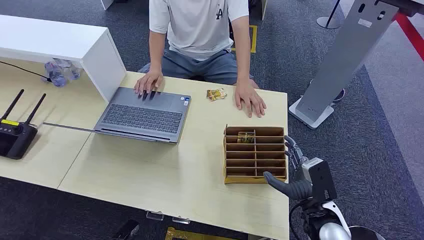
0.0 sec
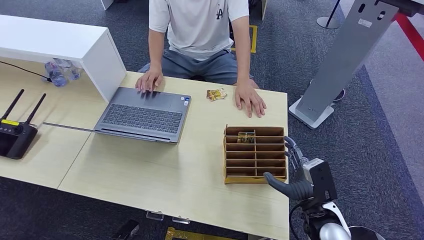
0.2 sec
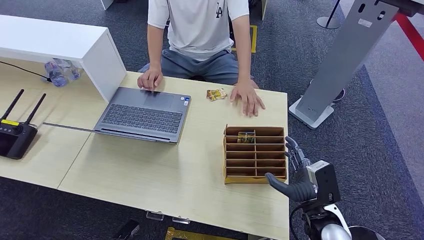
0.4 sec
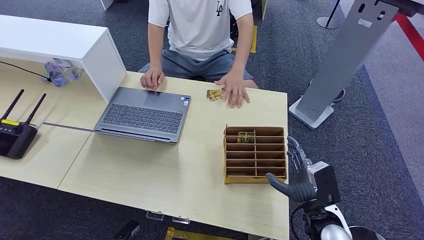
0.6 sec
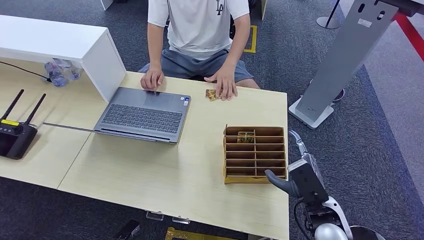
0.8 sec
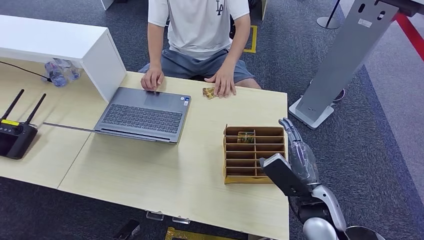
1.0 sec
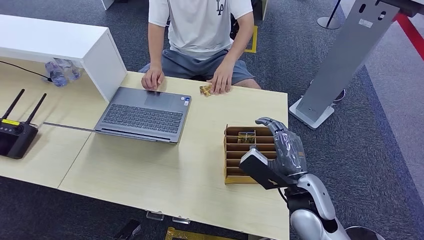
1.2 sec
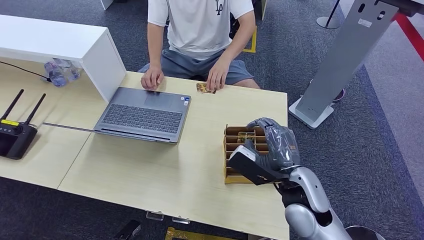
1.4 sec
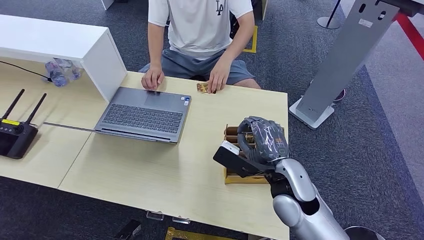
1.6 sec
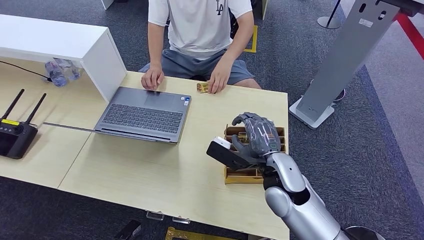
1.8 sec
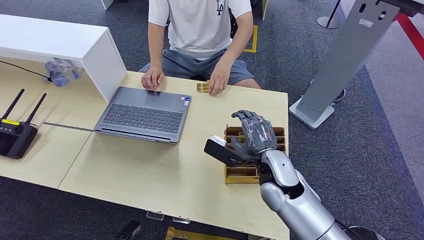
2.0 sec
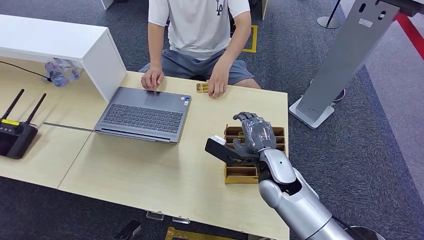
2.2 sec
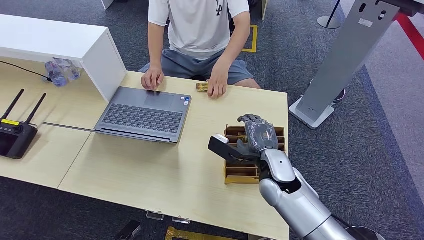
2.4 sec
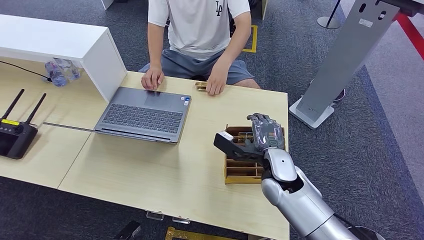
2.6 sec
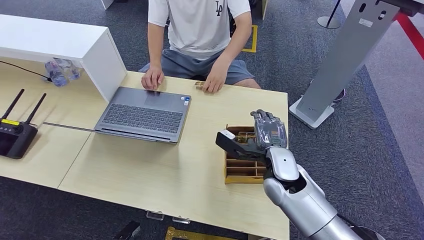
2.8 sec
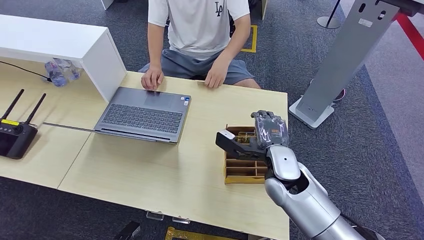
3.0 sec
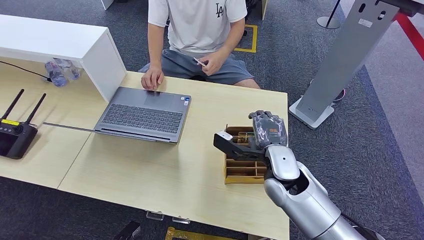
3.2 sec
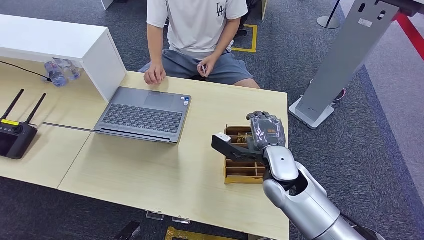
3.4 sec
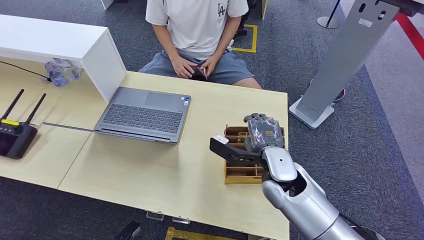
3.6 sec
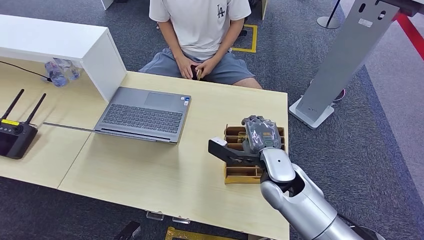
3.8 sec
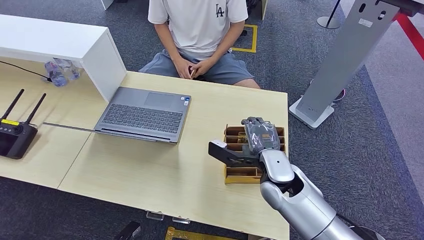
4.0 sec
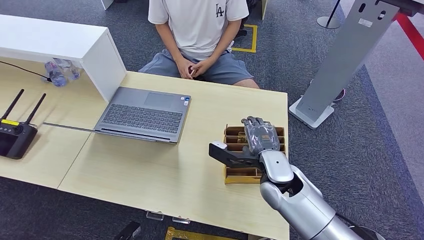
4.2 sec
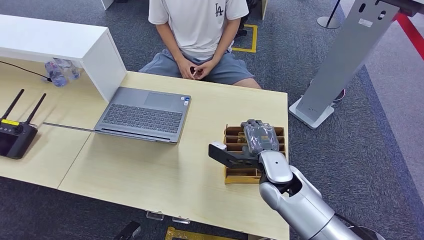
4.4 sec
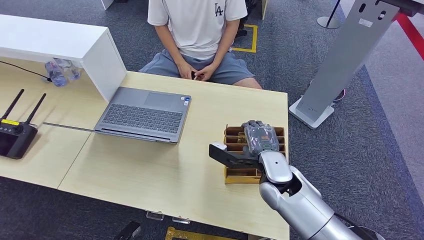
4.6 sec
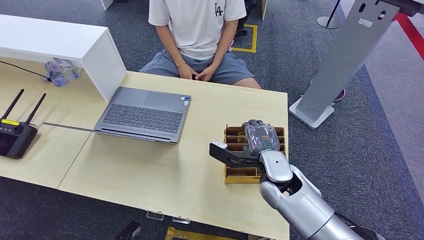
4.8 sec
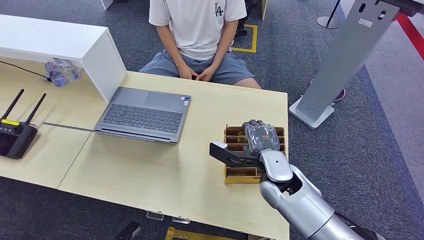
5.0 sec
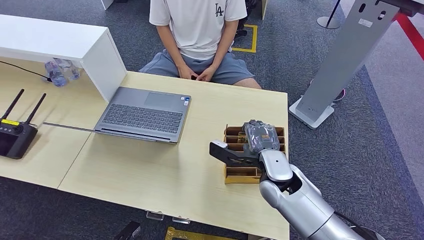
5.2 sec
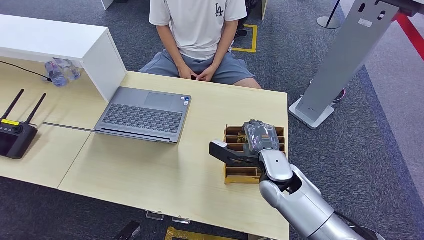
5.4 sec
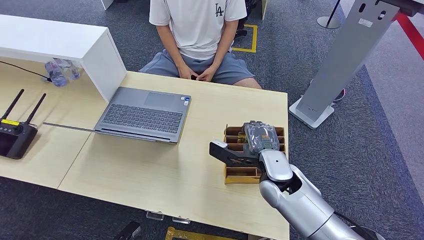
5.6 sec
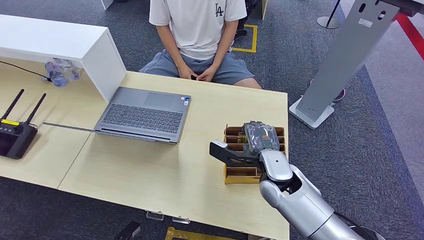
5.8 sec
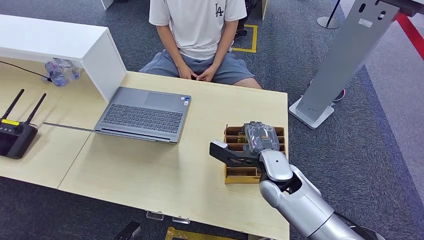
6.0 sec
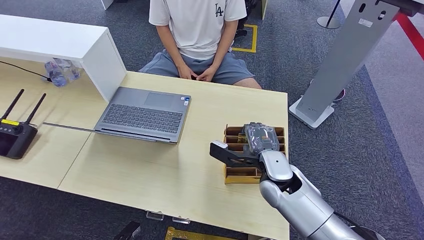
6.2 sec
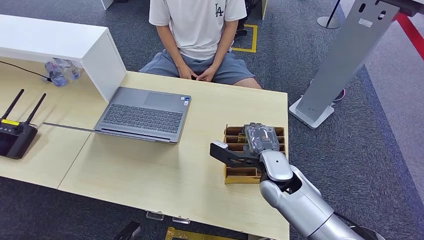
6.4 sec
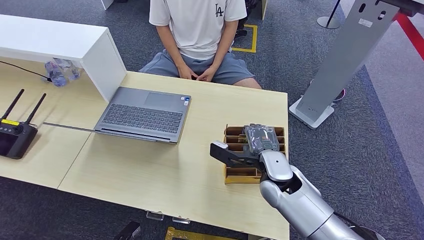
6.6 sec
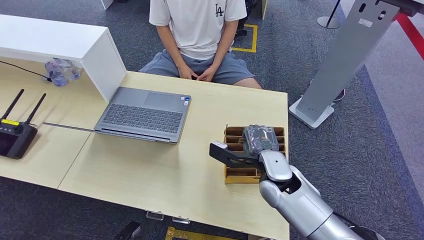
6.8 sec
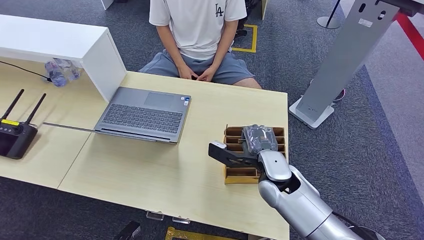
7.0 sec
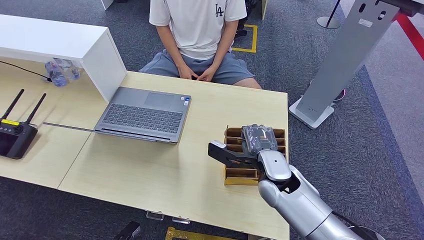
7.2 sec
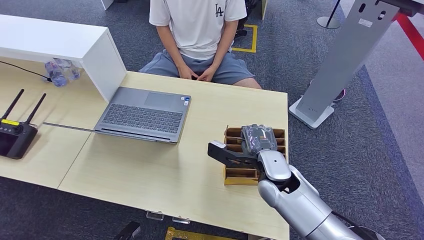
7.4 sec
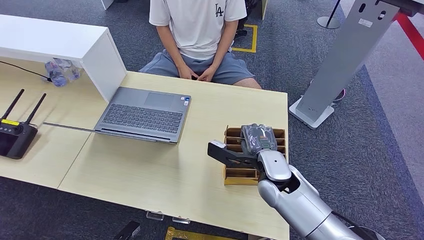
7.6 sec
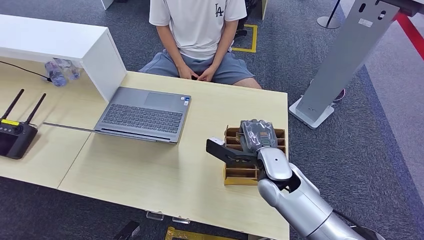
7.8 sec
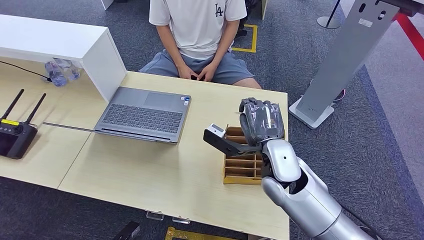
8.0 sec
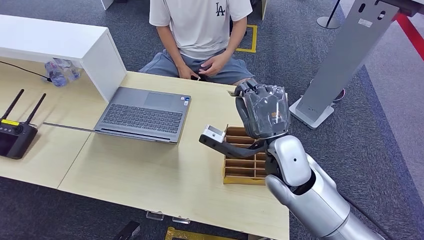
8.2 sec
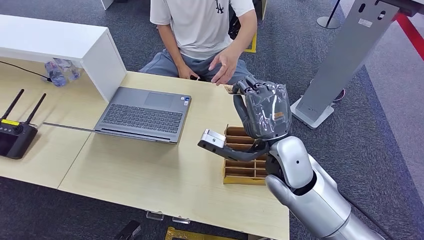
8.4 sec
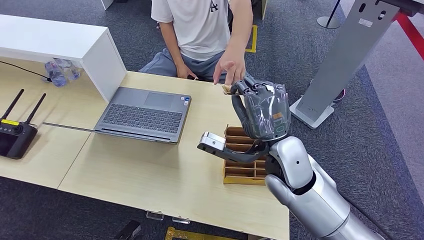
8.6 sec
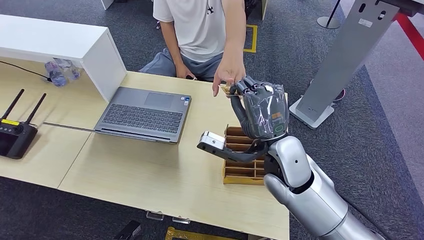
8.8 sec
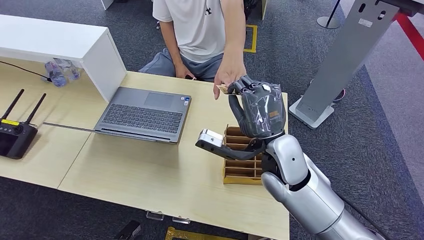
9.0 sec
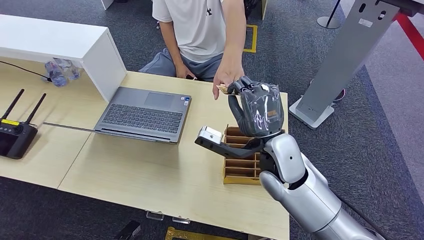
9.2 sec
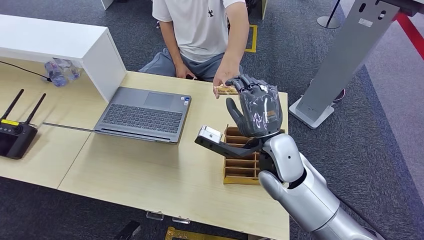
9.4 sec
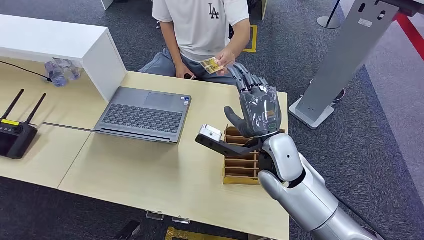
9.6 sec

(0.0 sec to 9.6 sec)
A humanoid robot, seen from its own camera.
Step, 0.0 sec - 8.2 sec: Pick up the key card from the card box.
Step, 8.4 sec - 9.4 sec: Hand the key card to the target.
3.2 sec - 4.8 sec: The hands stay close to where they were, moving slightly.
4.8 sec - 6.4 sec: Both hands stay about where they are.
6.4 sec - 8.0 sec: The right hand goes about 5 cm upward.

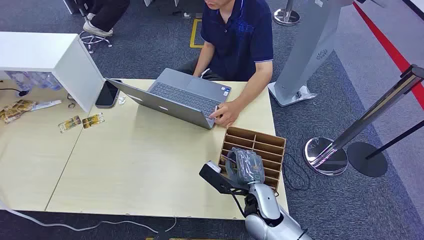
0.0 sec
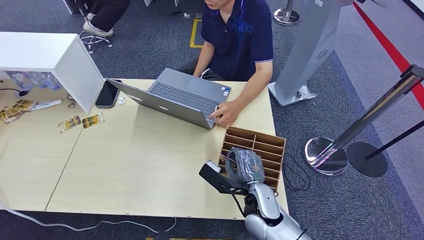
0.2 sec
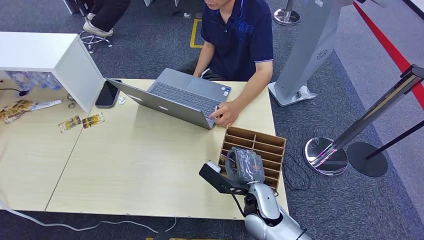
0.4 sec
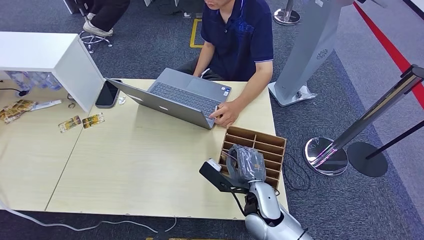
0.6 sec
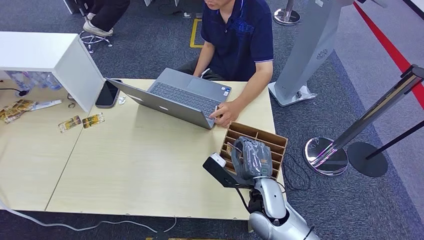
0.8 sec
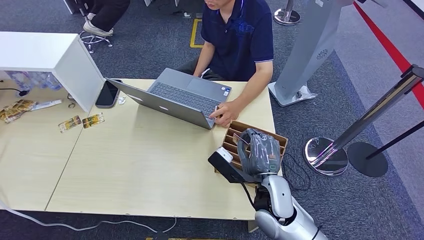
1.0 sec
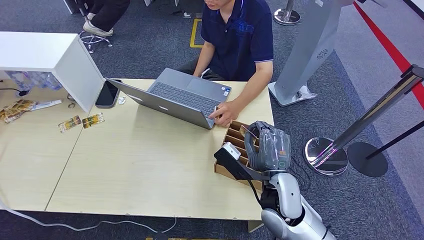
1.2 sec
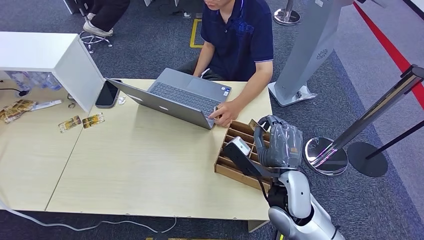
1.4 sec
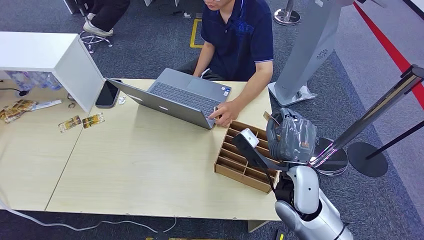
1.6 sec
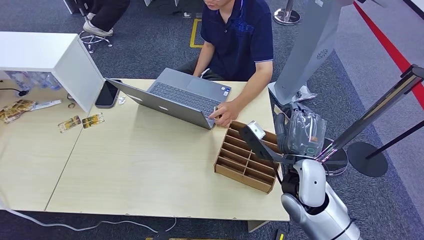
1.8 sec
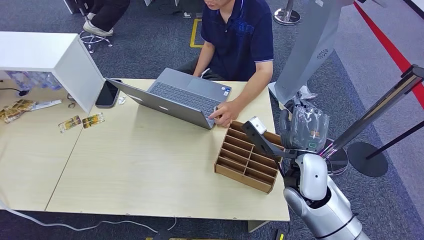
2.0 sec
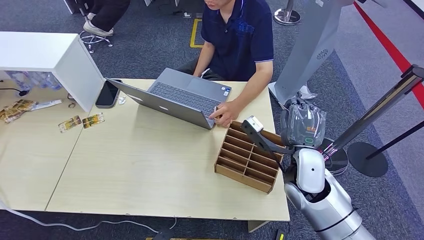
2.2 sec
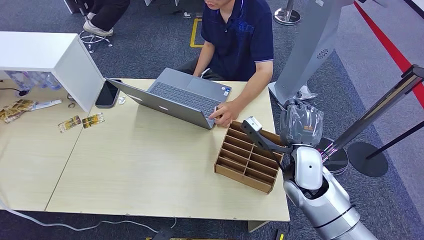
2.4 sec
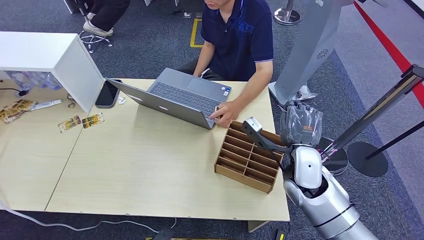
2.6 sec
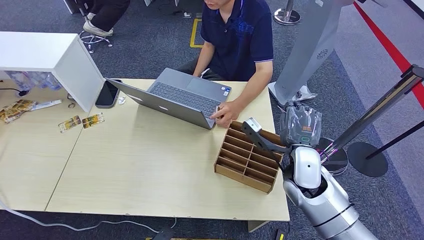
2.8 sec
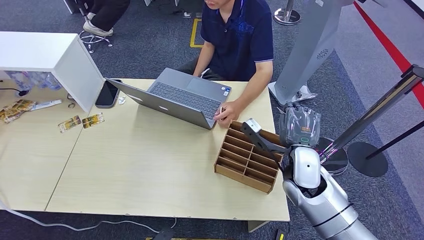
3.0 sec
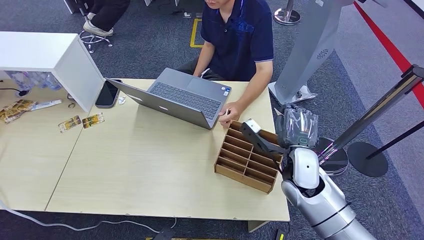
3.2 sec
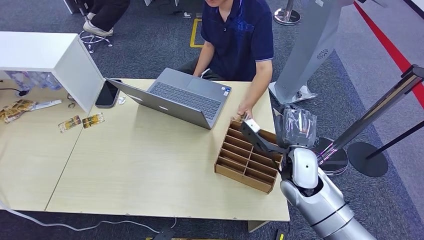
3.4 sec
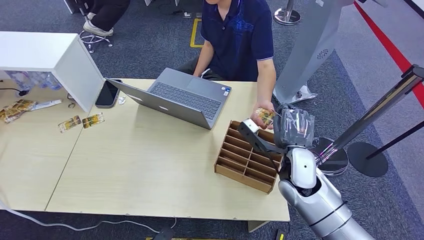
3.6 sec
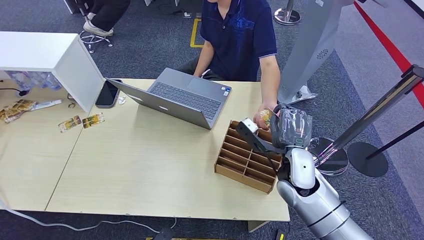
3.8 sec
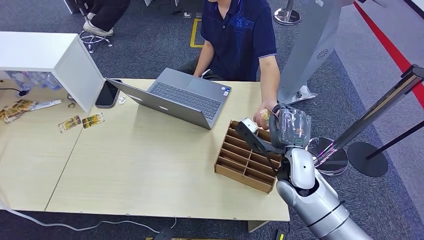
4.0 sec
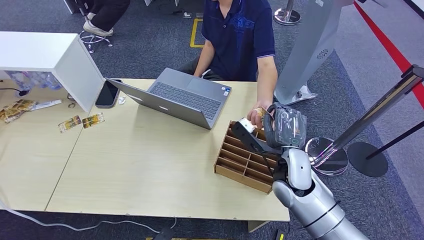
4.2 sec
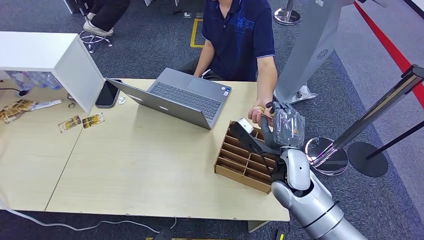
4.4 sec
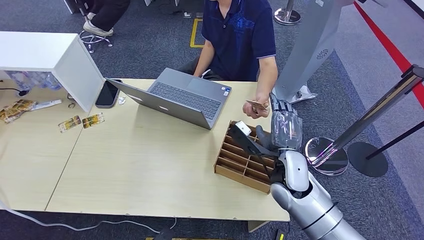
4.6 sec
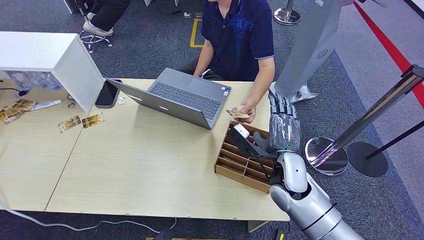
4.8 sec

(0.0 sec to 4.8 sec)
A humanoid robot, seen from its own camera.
Step, 0.0 sec - 1.0 sec: Pick up the key card from the card box.
Step, 4.4 sec - 4.8 sec: Hand the key card to the target.
1.6 sec - 3.2 sec: The right hand moves forward, roughly 5 cm.
3.2 sec - 4.8 sec: The hands move only a little.

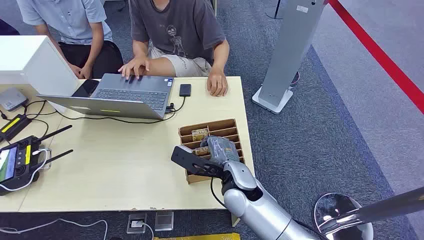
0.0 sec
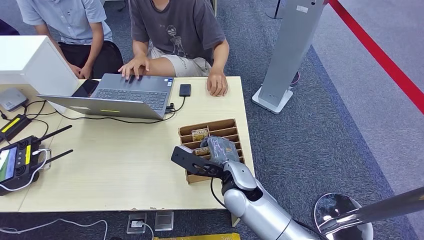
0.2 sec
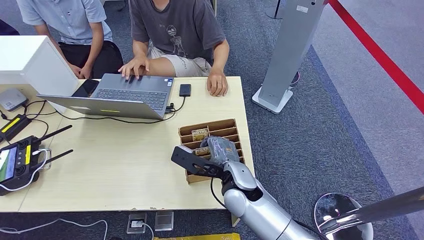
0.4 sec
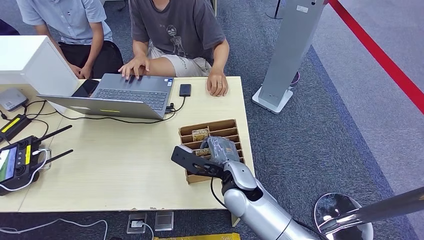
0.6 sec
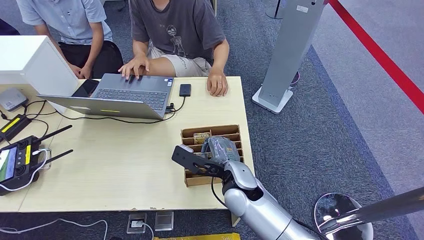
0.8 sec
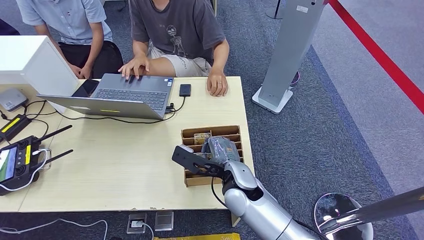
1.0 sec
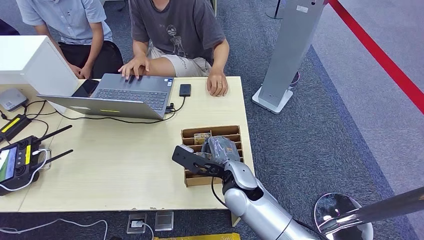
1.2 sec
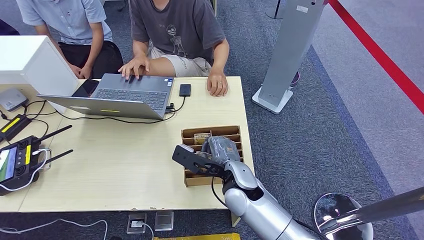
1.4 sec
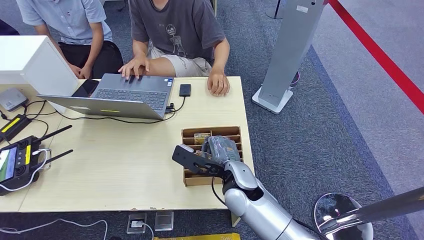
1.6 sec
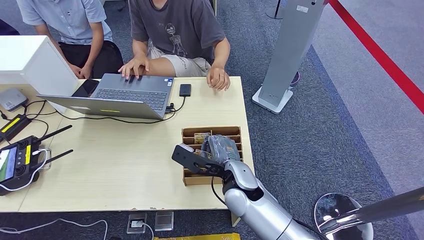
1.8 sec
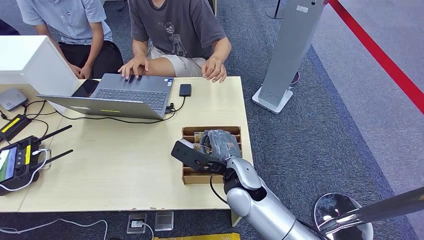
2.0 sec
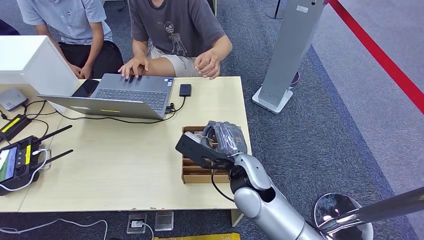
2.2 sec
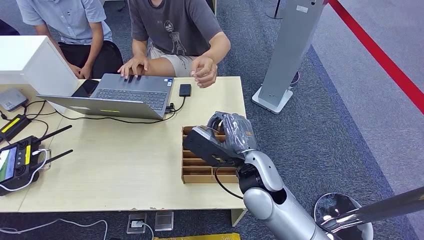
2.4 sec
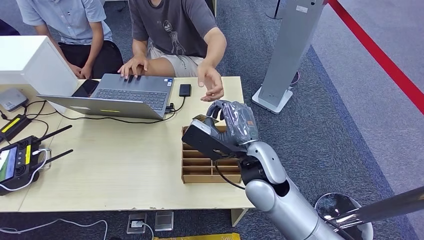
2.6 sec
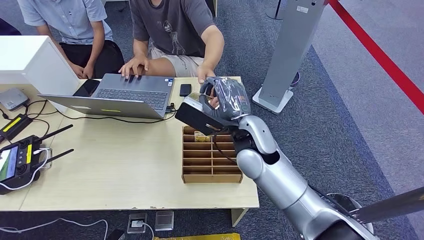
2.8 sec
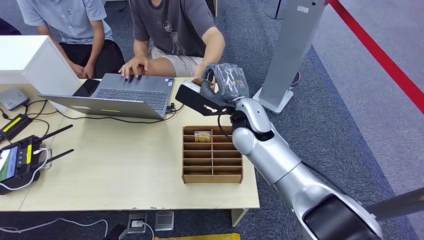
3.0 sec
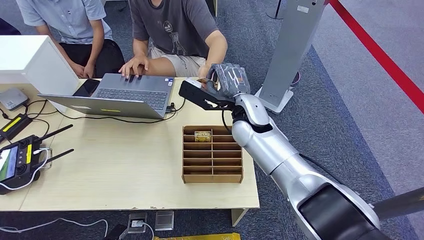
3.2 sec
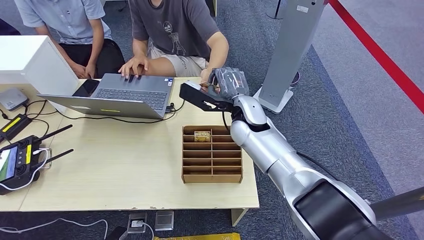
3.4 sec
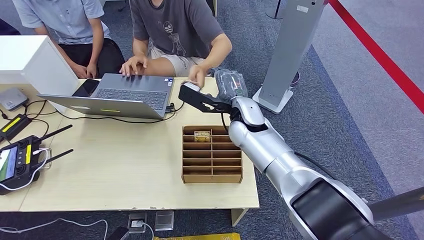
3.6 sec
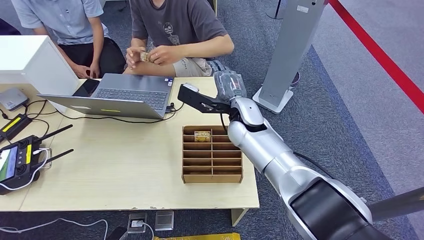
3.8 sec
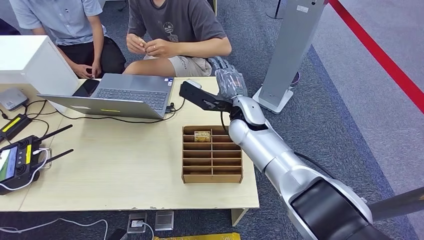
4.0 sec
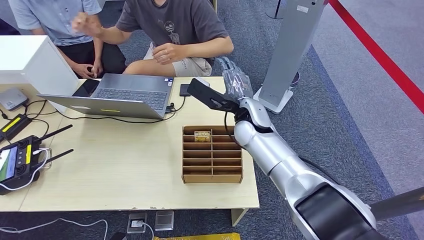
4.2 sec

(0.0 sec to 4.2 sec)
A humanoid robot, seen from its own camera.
Step, 0.0 sec - 2.2 sec: Pick up the key card from the card box.
1.4 sec - 2.8 sec: The right hand travels upward and forward by approximately 10 cm.
2.8 sec - 4.2 sec: The right hand is displaced forward by about 10 cm.
